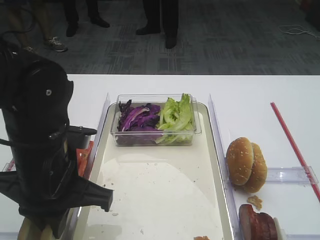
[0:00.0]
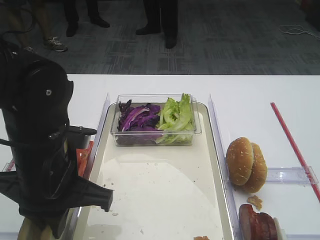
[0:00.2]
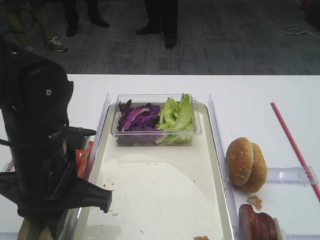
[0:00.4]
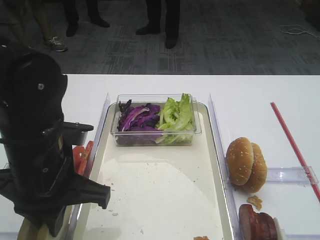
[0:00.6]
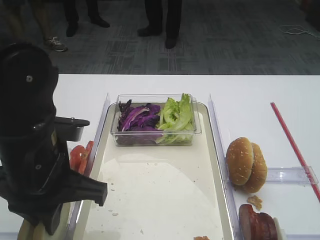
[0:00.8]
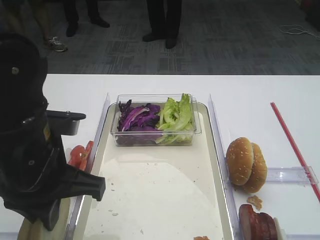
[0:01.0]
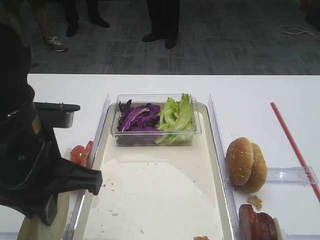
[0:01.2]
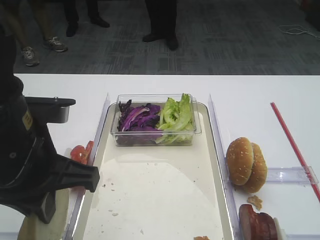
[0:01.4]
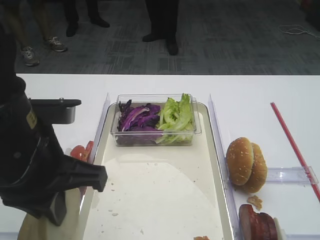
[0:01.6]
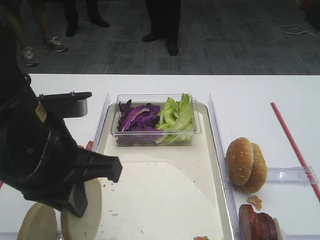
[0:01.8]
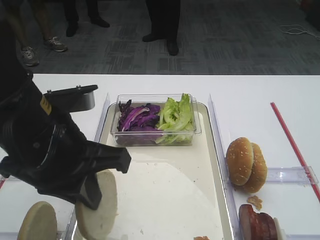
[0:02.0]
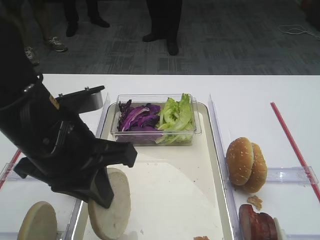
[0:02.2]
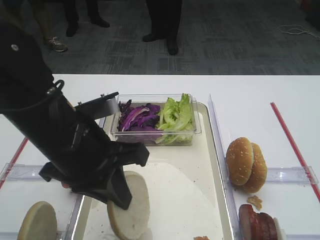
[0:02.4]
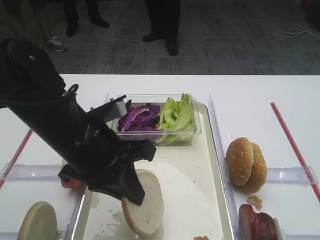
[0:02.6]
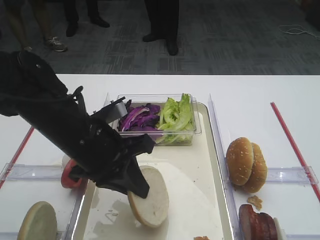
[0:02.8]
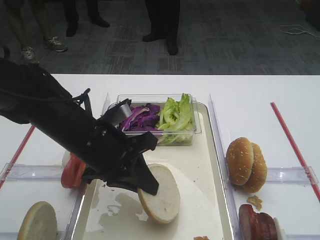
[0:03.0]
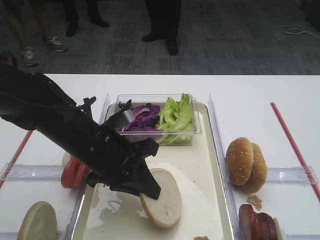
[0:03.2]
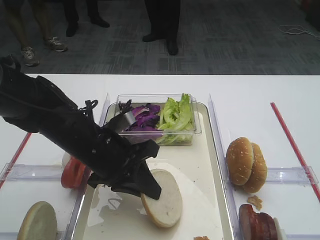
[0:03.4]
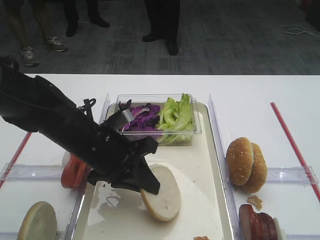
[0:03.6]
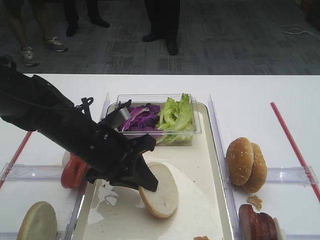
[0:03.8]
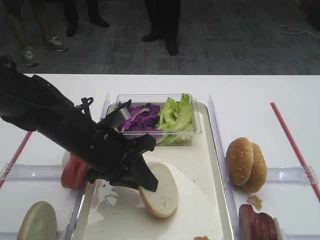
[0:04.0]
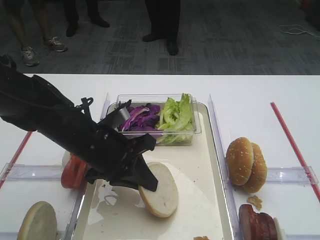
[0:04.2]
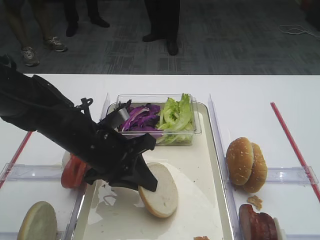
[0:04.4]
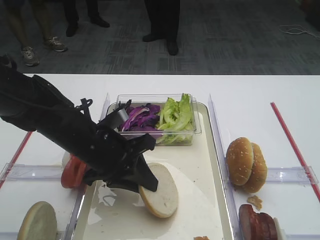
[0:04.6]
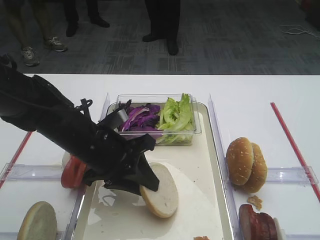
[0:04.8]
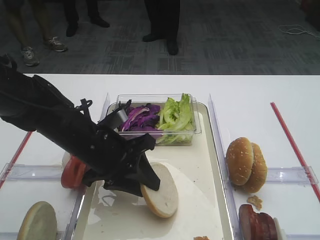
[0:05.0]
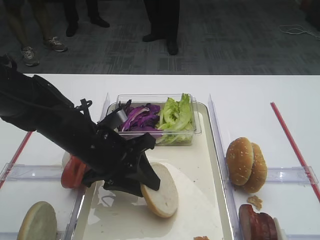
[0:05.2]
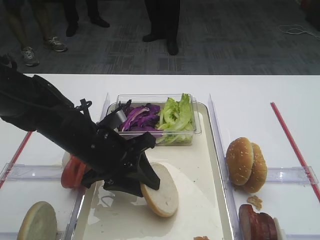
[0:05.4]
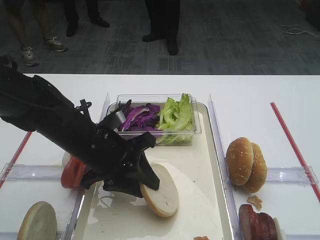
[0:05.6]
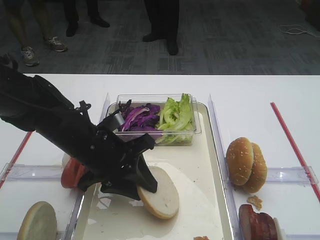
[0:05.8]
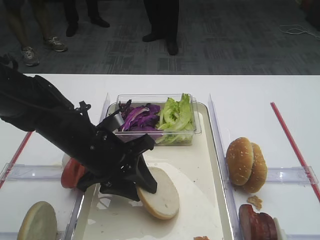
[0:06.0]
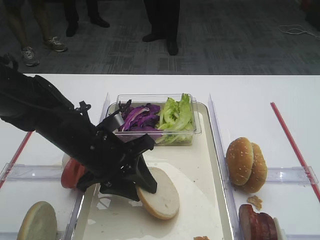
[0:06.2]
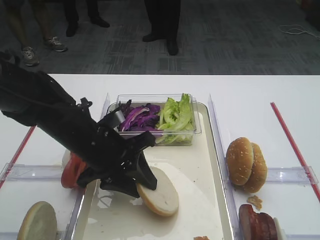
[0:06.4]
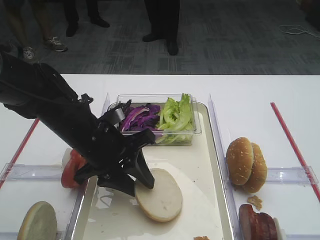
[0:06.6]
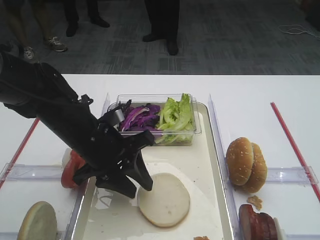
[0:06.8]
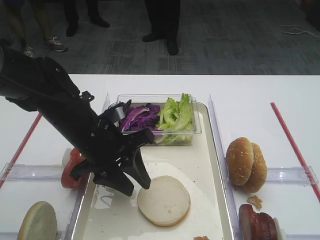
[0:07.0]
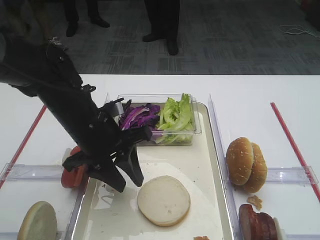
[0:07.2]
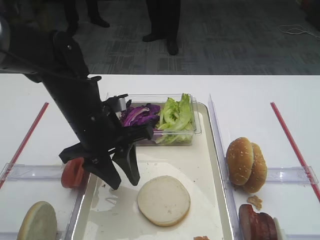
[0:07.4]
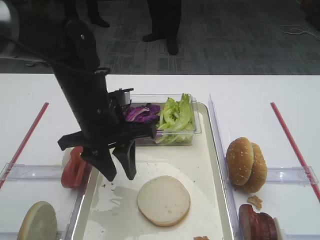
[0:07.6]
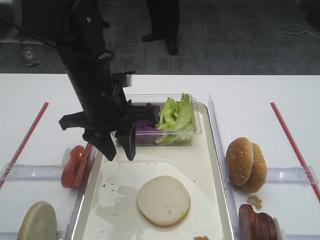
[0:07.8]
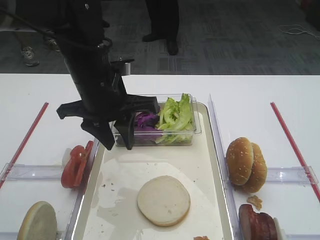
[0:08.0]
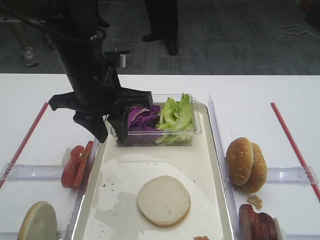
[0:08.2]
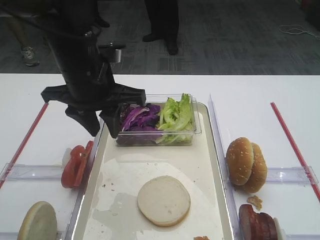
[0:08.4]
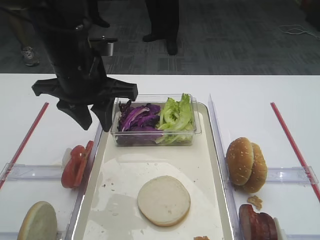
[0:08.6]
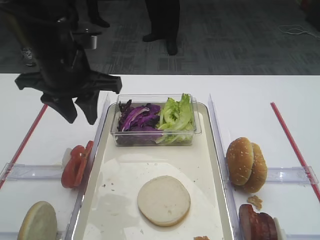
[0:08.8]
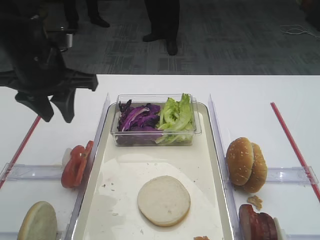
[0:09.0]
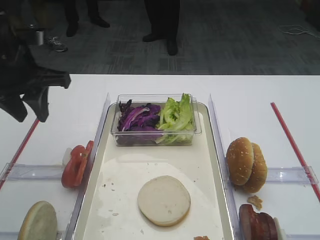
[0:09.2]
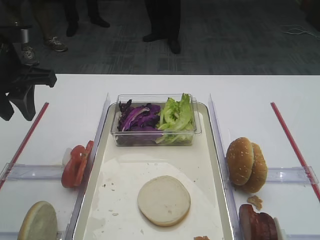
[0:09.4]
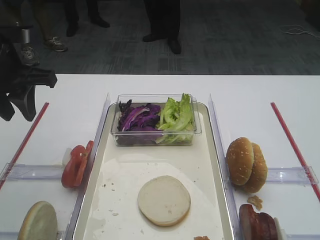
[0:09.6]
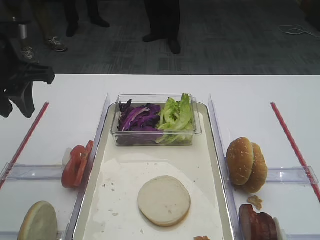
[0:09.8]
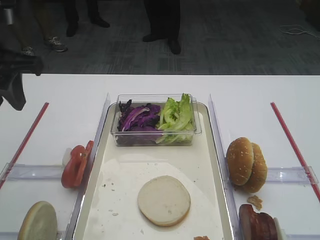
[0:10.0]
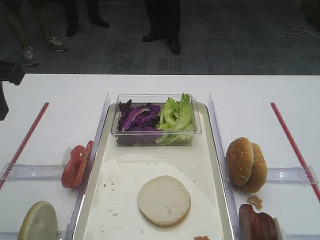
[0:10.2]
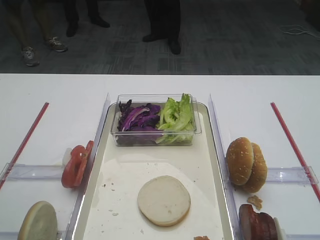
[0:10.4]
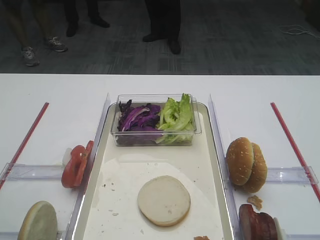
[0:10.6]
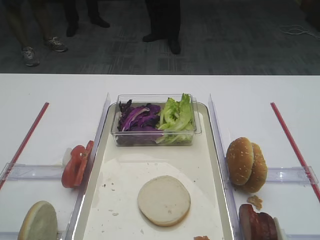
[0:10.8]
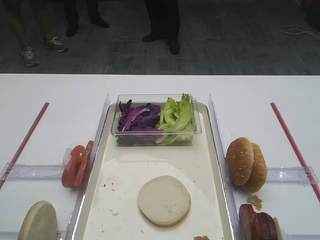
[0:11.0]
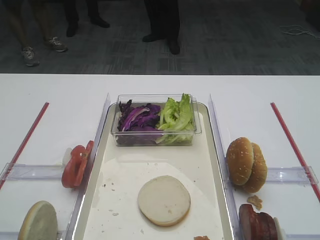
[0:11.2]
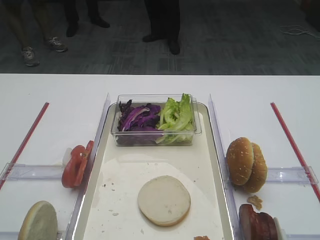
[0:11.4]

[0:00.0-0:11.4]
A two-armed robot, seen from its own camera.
Step, 1.8 to 7.2 s: Place the bread slice on the tray with the left gripper.
0.0 to 1.4 s: The left gripper is displaced upward by approximately 5 cm.
1.4 to 2.8 s: The left gripper goes roughly 10 cm downward and forward.
2.8 to 4.2 s: The grippers stay close to where they were, moving slightly.
4.2 to 5.6 s: The left gripper opens its fingers.
5.6 to 7.2 s: There are only small adjustments of the grippers.
7.2 to 8.6 s: The left gripper goes approximately 10 cm upward.
8.6 to 10.0 s: The left gripper travels to the left by roughly 10 cm.
10.0 to 11.4 s: The left gripper shifts some 25 cm backward.

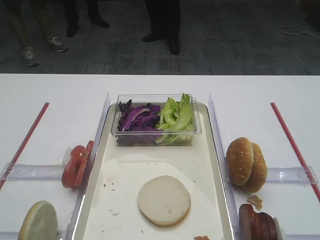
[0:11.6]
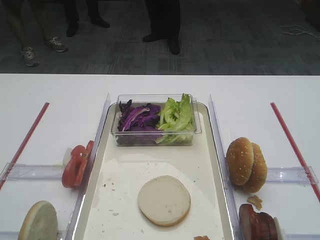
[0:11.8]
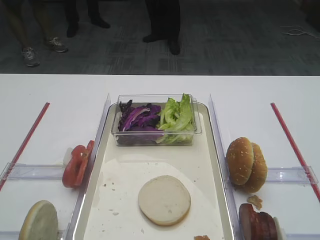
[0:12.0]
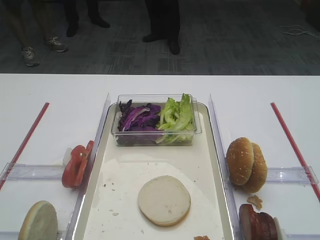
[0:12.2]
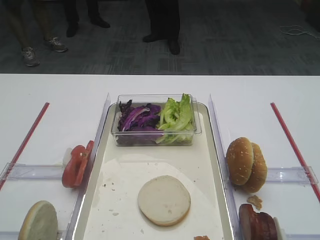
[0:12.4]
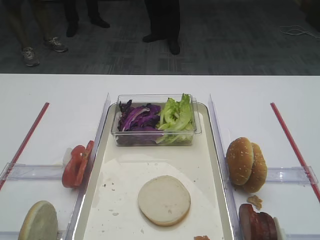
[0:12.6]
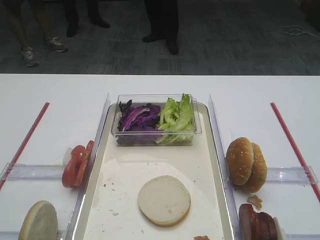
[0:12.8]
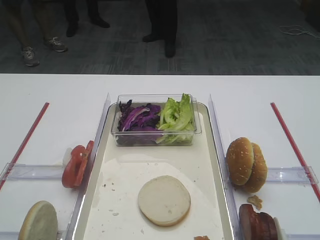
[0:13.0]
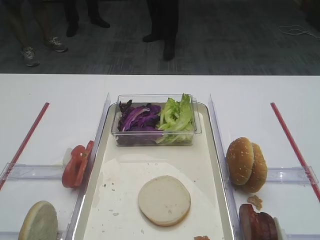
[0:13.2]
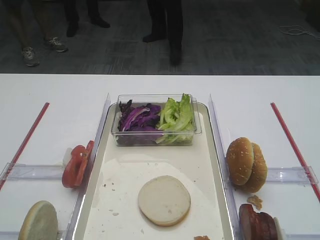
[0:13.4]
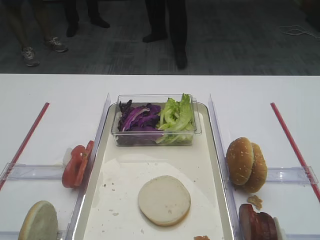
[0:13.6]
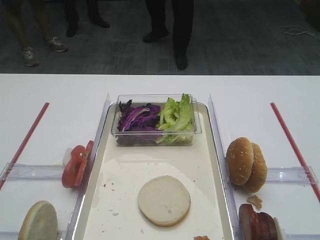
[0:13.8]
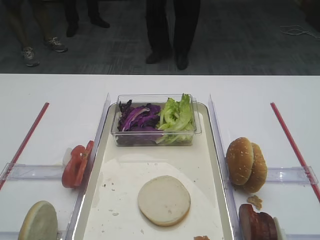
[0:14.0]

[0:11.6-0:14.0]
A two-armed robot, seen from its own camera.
12.8 to 14.0 s: The two grippers keep their place.

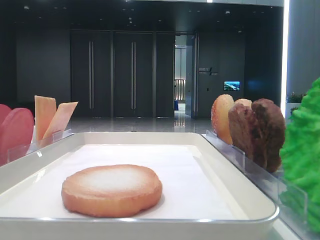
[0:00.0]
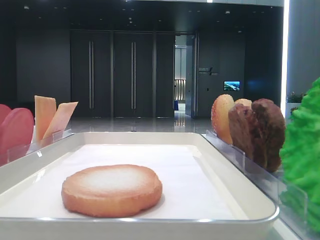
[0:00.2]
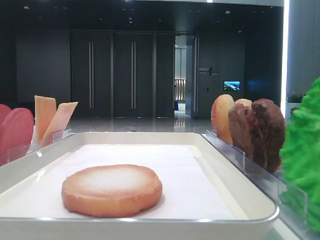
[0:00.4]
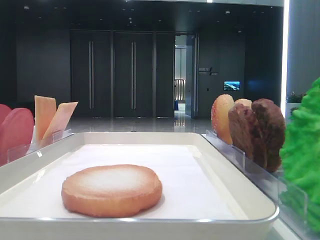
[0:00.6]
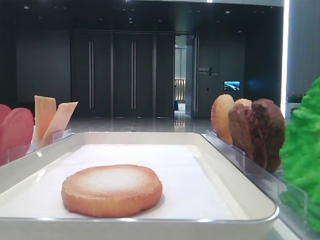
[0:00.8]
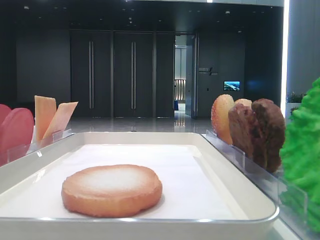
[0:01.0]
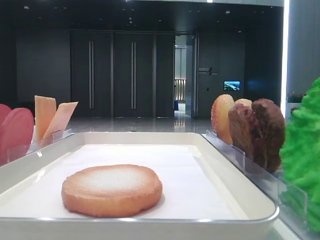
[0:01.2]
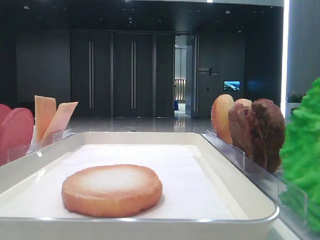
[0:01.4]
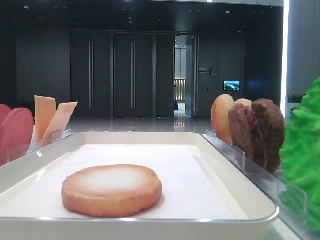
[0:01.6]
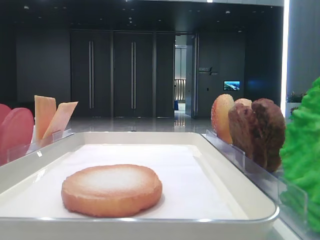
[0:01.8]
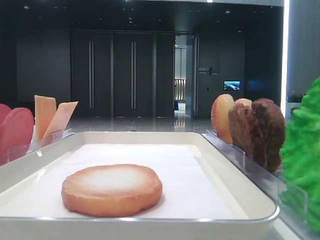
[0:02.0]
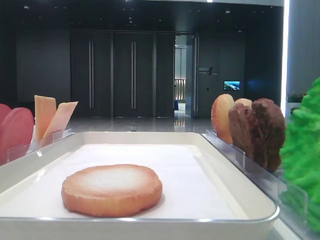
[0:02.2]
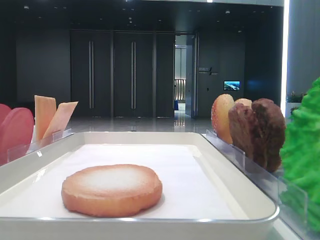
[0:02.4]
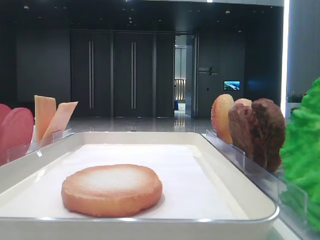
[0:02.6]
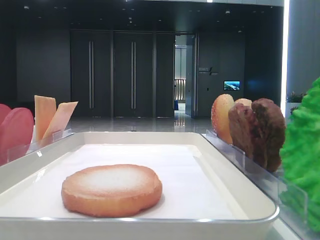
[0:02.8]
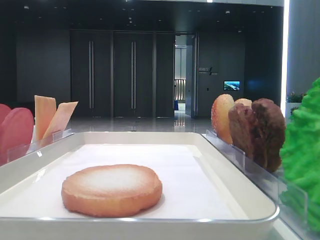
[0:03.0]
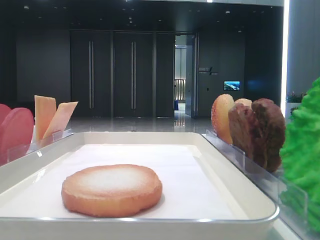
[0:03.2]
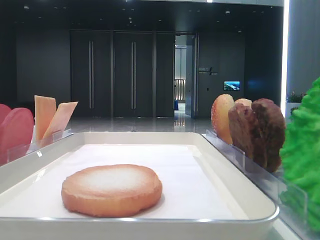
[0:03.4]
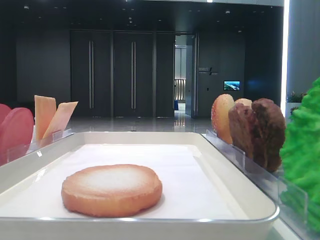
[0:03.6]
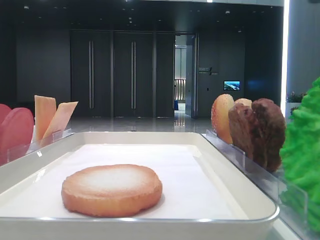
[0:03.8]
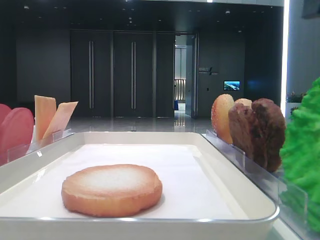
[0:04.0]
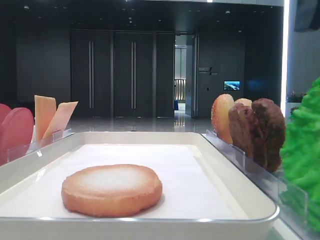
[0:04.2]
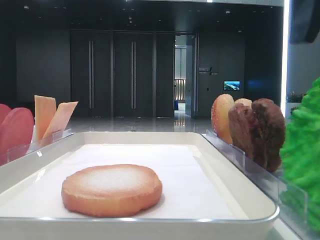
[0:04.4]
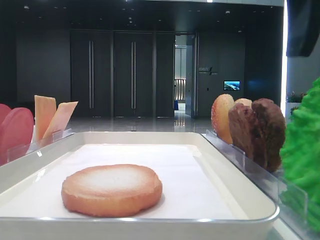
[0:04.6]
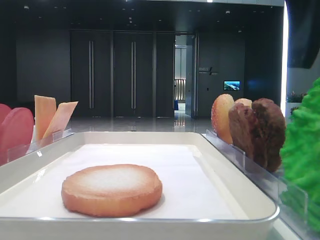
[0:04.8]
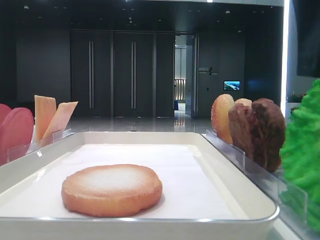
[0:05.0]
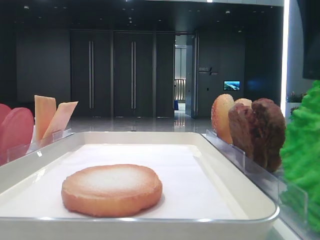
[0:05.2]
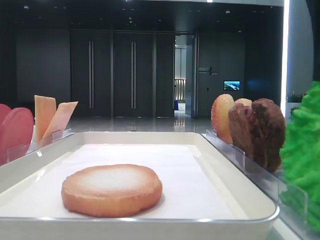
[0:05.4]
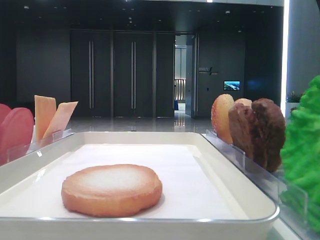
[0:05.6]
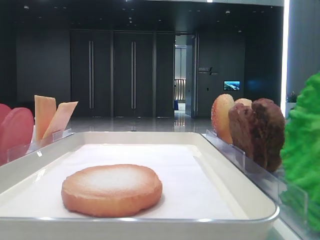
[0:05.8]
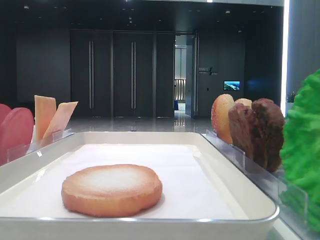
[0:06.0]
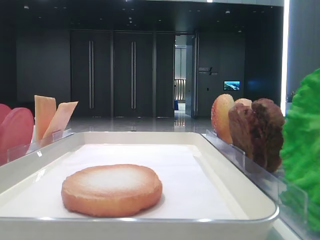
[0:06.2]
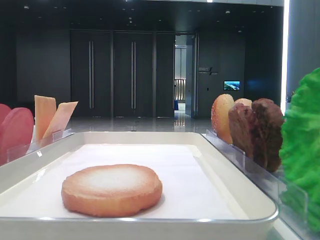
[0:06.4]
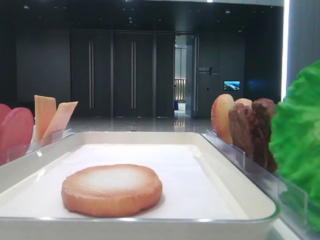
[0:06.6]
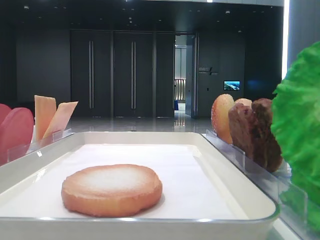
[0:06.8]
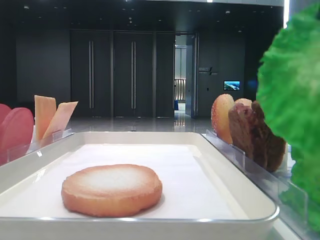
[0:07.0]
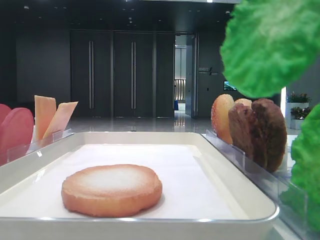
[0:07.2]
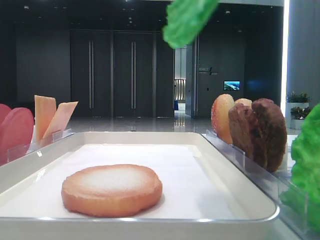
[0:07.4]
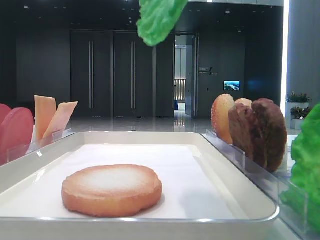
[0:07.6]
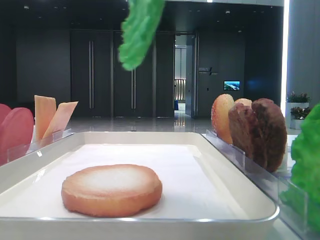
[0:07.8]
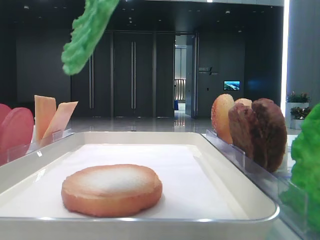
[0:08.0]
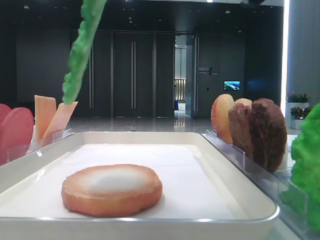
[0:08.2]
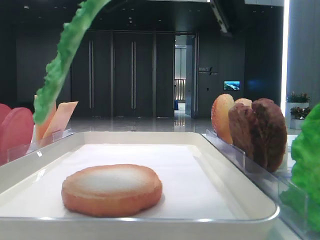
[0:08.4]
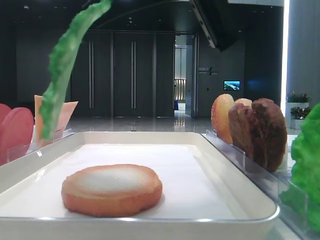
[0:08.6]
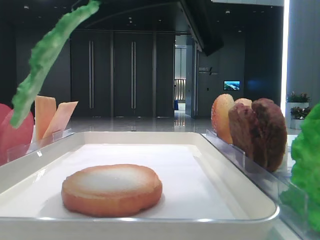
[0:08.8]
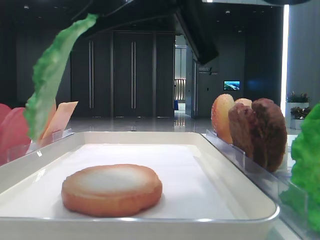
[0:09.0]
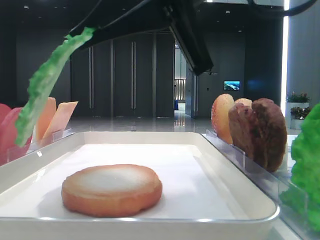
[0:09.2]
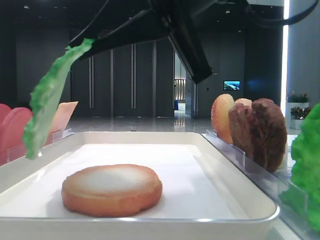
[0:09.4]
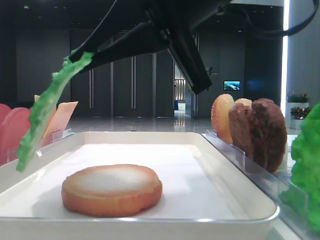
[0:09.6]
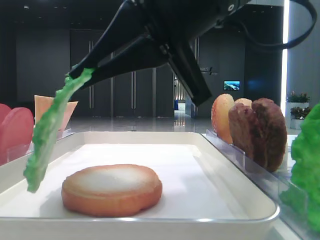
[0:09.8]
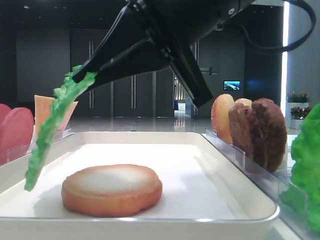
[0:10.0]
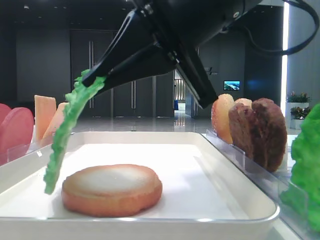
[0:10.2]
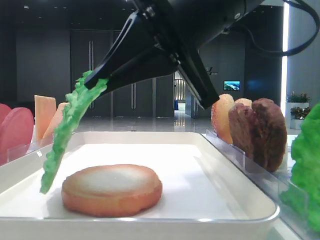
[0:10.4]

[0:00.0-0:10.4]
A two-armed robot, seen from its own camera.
Step, 0.0 to 6.2 s: Grab the lettuce leaf with the right hand.
3.0 to 4.4 s: The right gripper goes roughly 5 cm to the left.
4.4 to 6.0 s: The right gripper closes up.
6.0 to 7.4 s: The right gripper goes roughly 10 cm upward.
7.4 to 9.0 s: The right gripper shifts about 15 cm to the left, downward and forward.
9.0 to 10.4 s: The grippers stay close to where they were, moving slightly.
